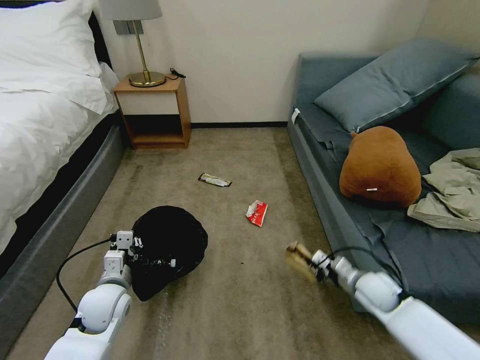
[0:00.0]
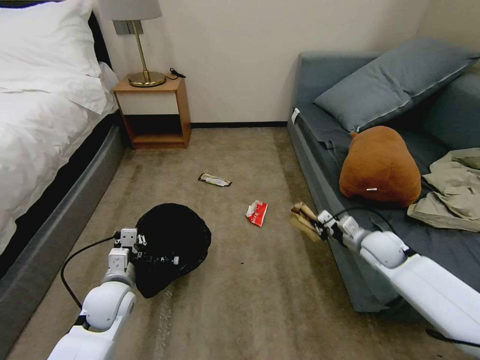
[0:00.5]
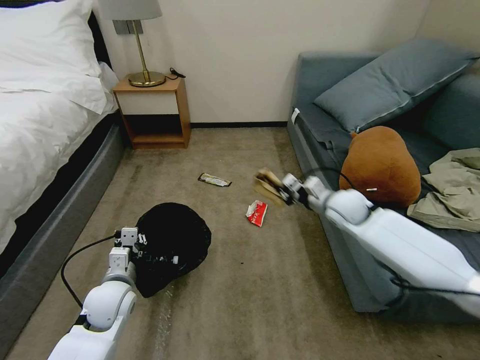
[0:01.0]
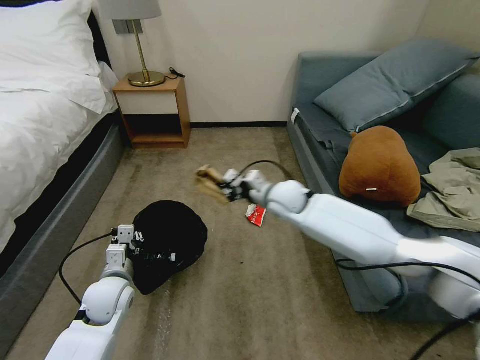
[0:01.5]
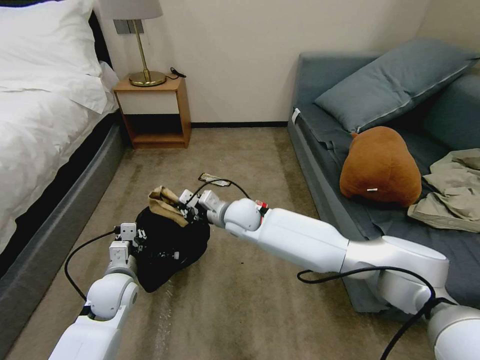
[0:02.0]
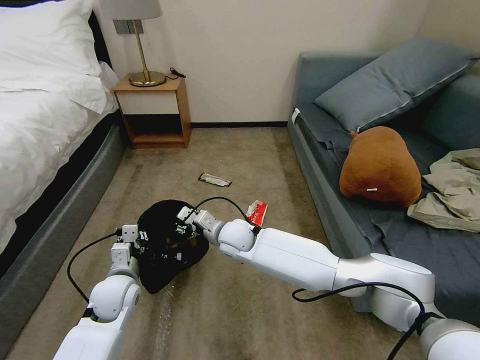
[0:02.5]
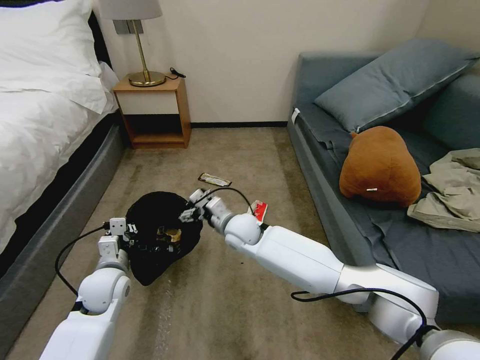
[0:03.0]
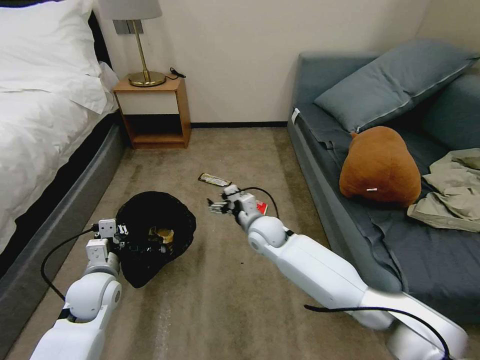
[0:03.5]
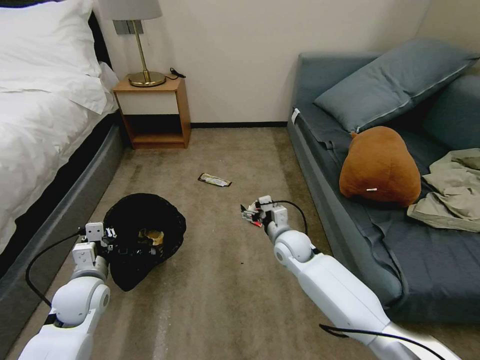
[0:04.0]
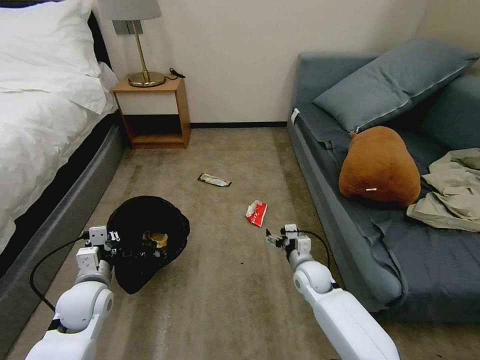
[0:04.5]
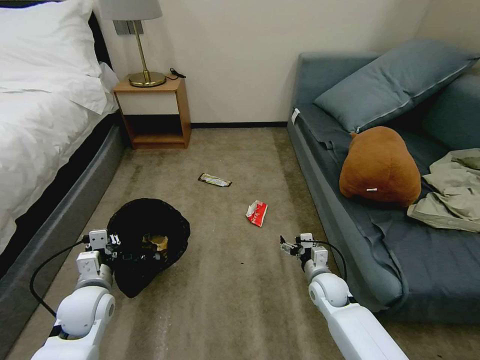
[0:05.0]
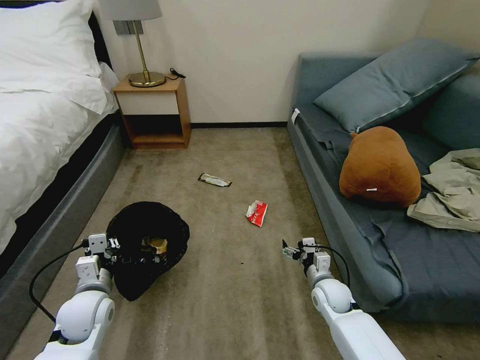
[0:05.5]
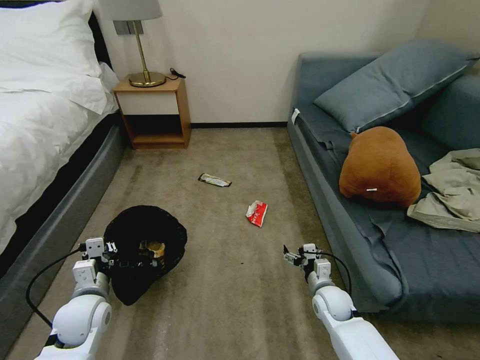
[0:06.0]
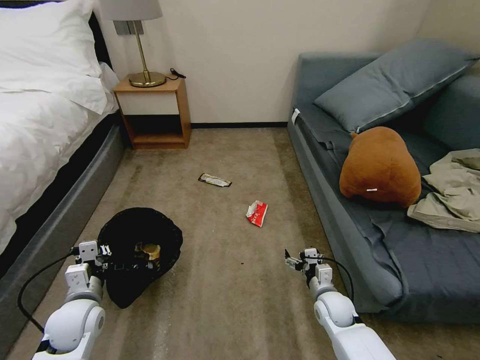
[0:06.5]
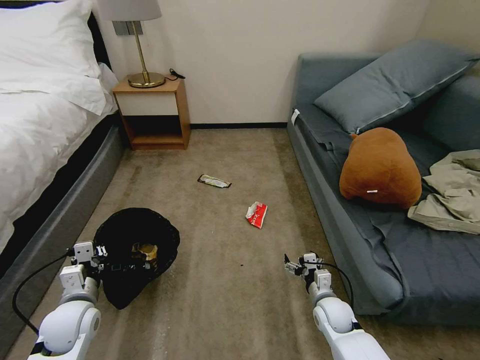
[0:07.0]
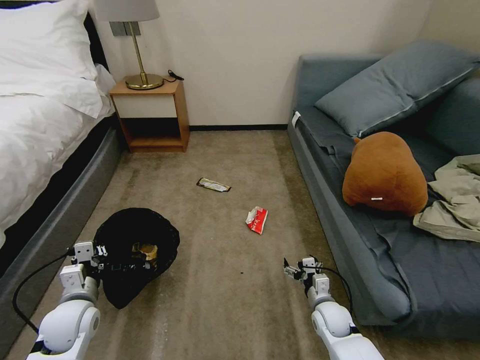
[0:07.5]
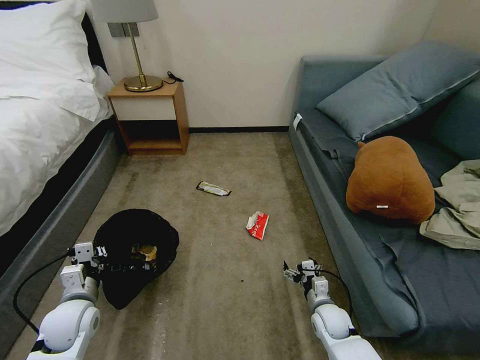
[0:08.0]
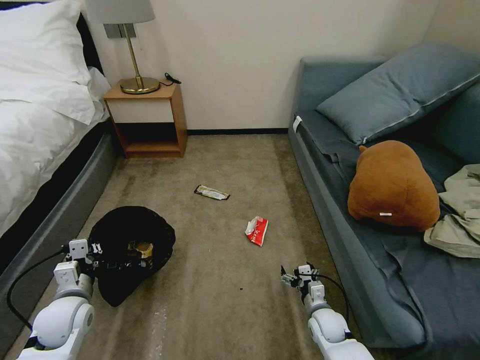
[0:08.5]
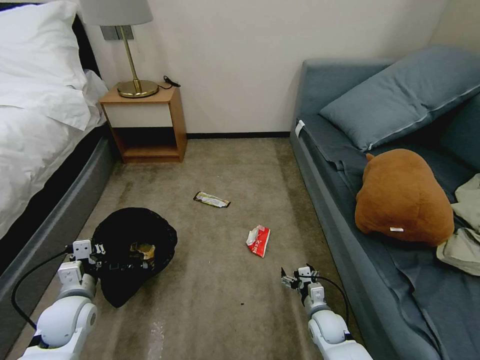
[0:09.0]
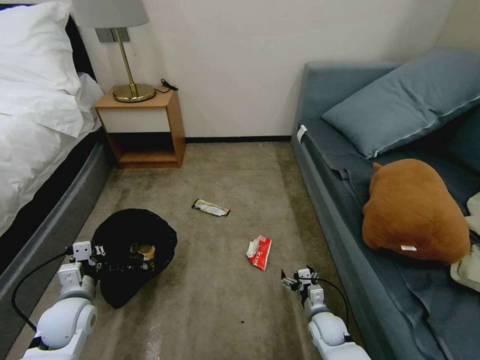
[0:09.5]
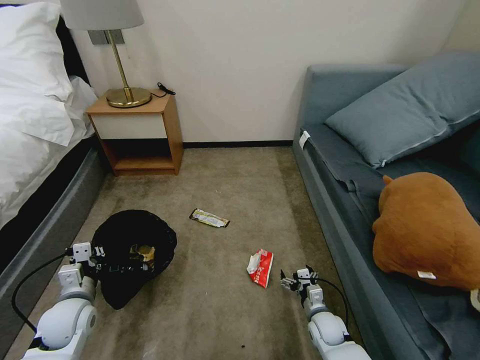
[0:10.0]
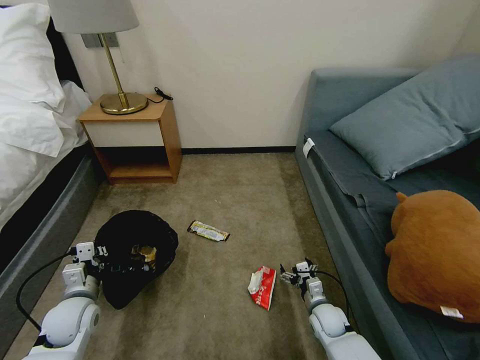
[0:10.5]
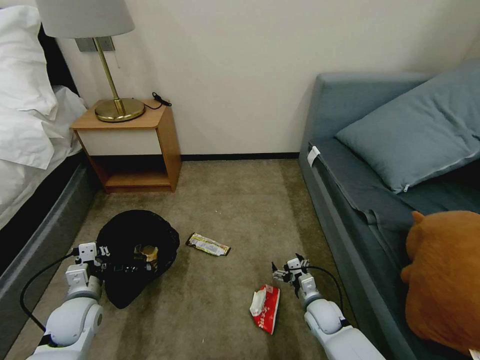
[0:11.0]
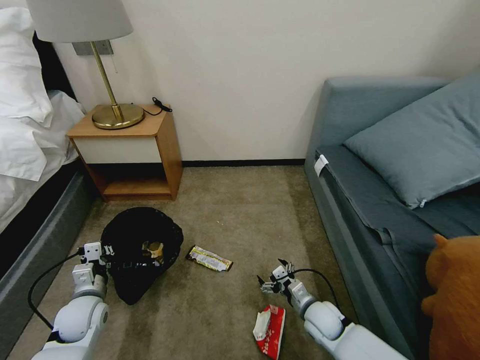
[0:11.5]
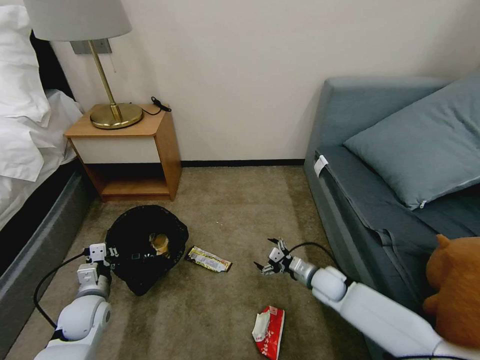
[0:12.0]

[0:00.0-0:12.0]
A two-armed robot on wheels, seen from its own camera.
Task of the whole recording: Pick up the trash bin, then pick up the garbage on the floor and place it into the trash bin.
0:00.0 to 0:02.0: The right gripper shifts some 40 cm to the left, upward and forward.
0:02.0 to 0:04.0: The right gripper moves to the right and downward, some 15 cm, and opens its fingers. Meanwhile the left gripper heads to the left, covering approximately 5 cm.
0:04.0 to 0:06.0: The right gripper is displaced downward, to the right and backward by approximately 20 cm.
0:06.0 to 0:08.0: The right gripper shifts by roughly 5 cm.
0:10.0 to 0:12.0: The right gripper goes about 10 cm forward and upward.

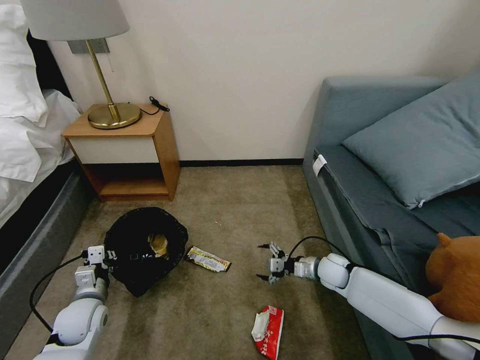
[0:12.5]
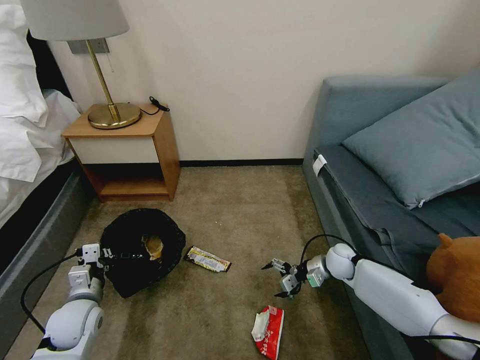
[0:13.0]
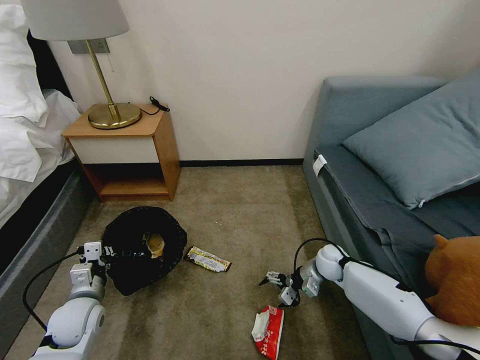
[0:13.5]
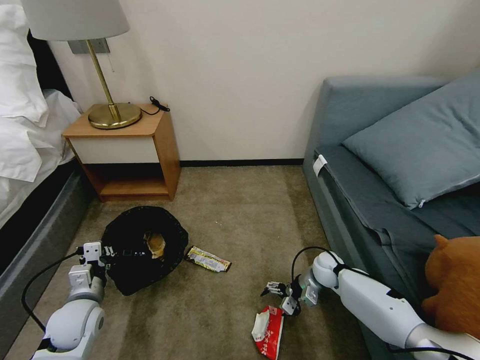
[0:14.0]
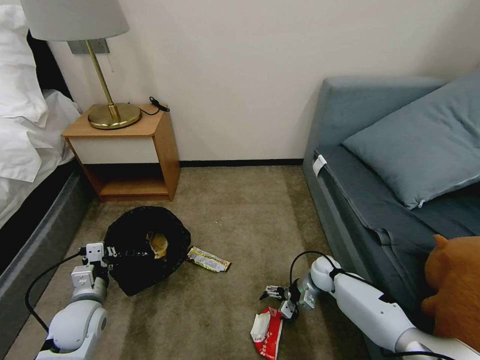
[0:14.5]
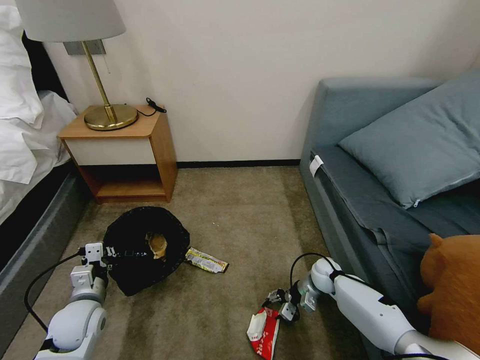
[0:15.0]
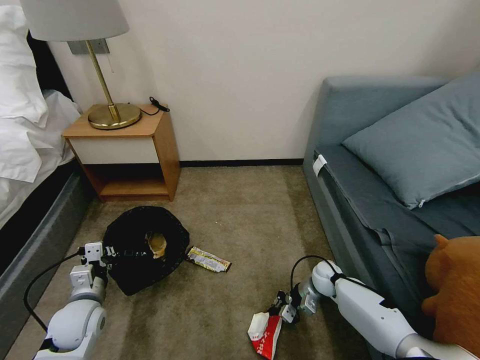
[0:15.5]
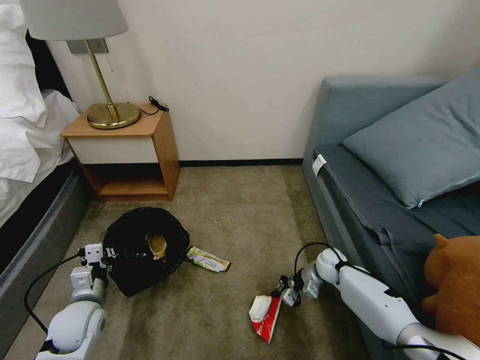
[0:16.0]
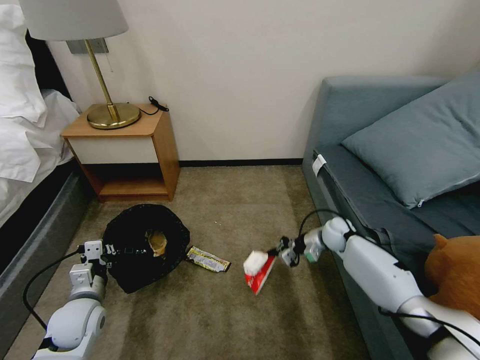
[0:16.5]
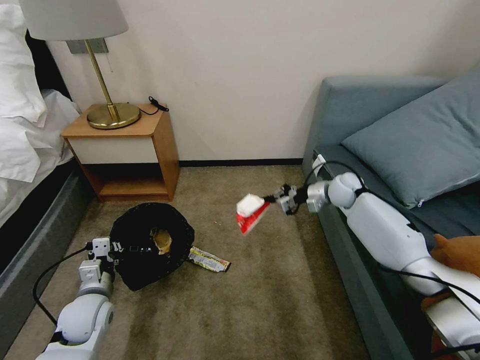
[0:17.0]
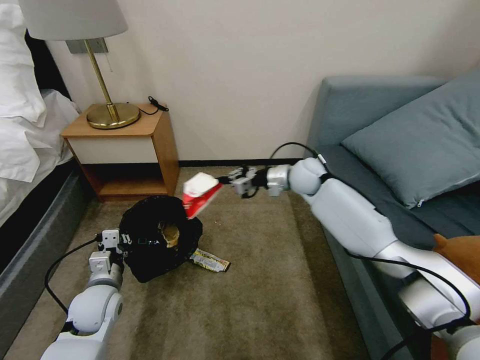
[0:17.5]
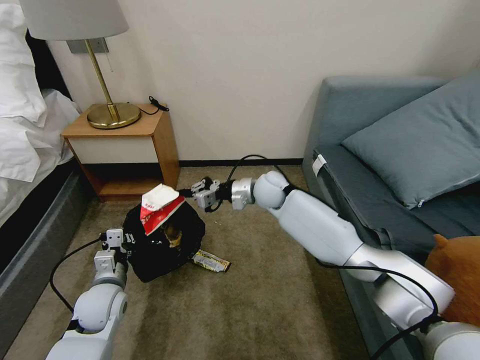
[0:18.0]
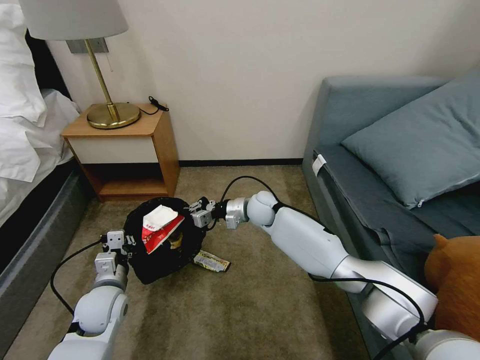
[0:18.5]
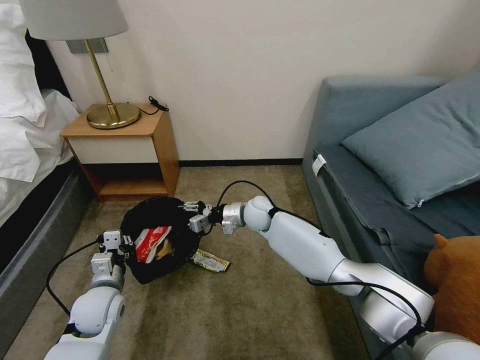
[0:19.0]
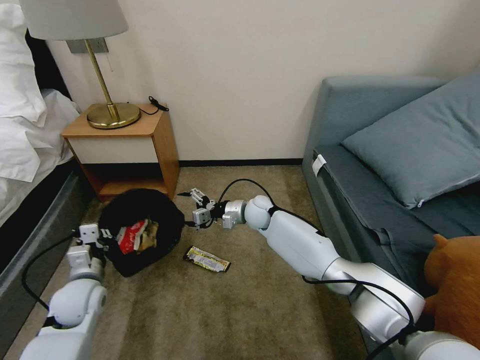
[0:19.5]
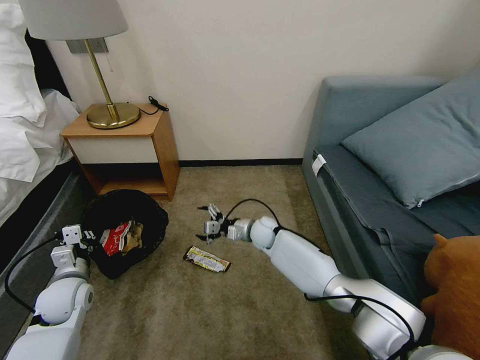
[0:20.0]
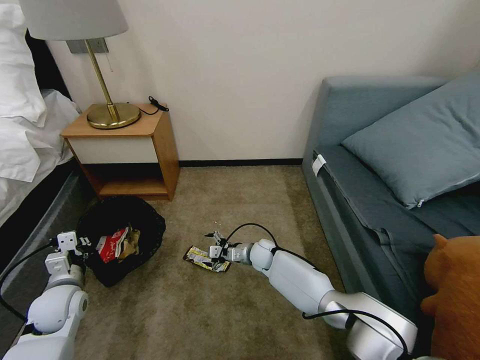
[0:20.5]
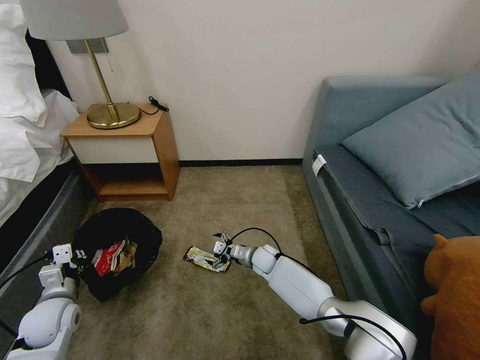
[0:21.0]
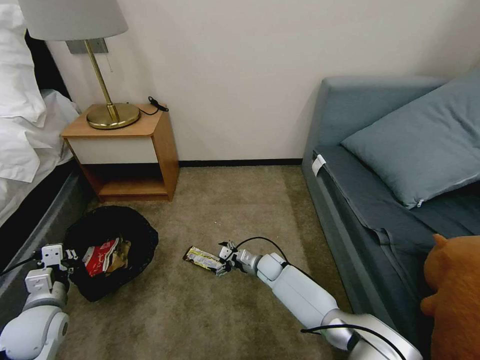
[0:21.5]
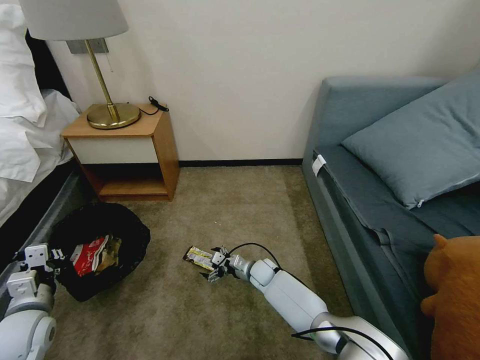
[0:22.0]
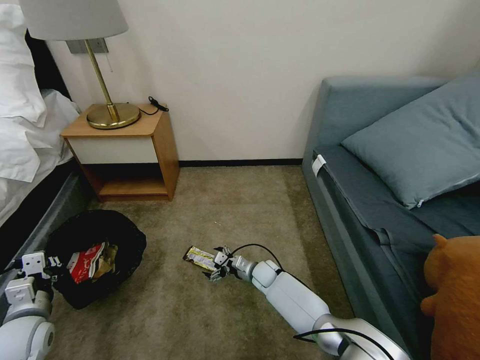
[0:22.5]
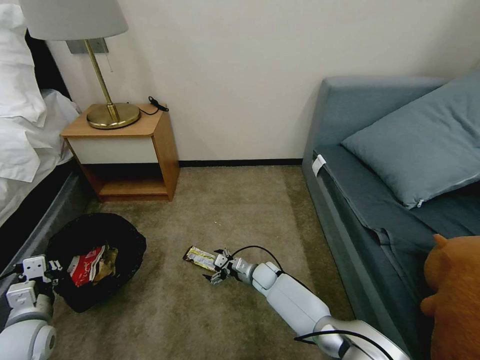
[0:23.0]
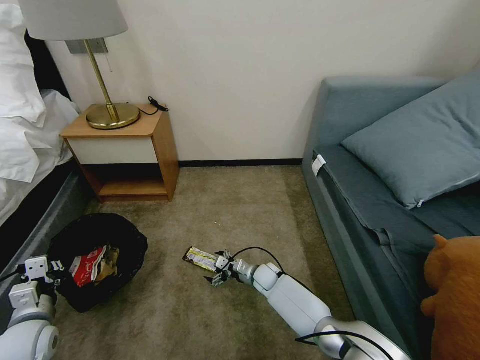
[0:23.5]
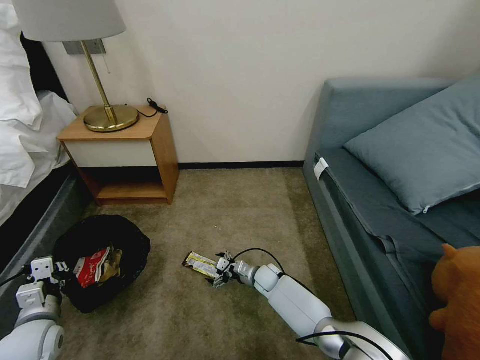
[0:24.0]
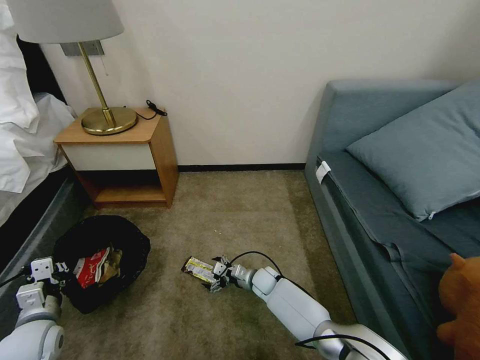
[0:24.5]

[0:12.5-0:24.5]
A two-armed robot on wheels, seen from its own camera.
Task of the whole recording: Pick up the trash bin, then pick up the garbage on the floor and place it into the trash bin.
0:14.5 to 0:16.5: The right gripper goes approximately 15 cm upward and forward, and closes its fingers.
0:16.5 to 0:18.5: The left gripper shifts by approximately 5 cm; the right gripper shifts approximately 25 cm to the left.
0:18.5 to 0:20.5: The right gripper shifts some 15 cm downward, and opens its fingers, while the left gripper is displaced to the left by about 10 cm.
0:20.5 to 0:22.5: The right gripper travels downward by some 5 cm. Meanwhile the left gripper travels backward by approximately 5 cm.
0:22.5 to 0:24.5: The grippers move only a little.

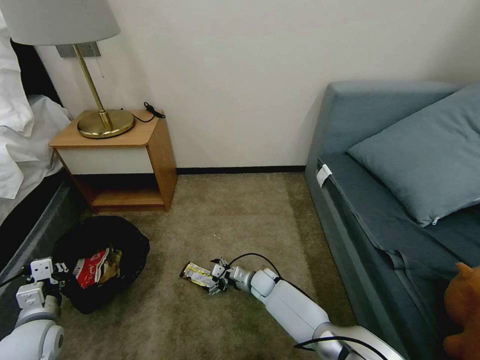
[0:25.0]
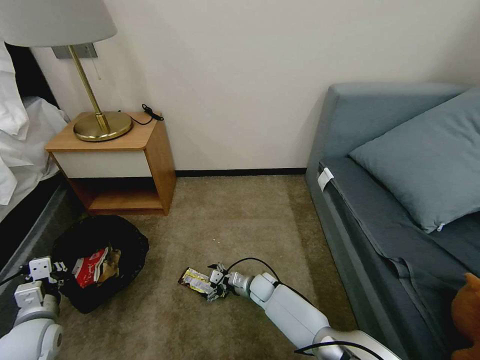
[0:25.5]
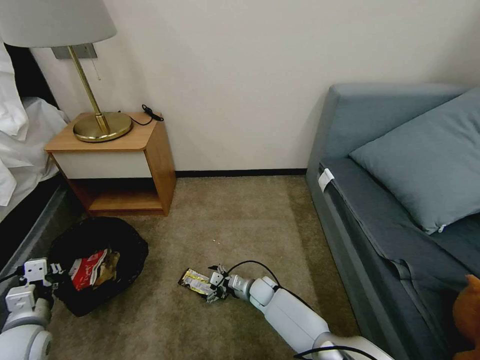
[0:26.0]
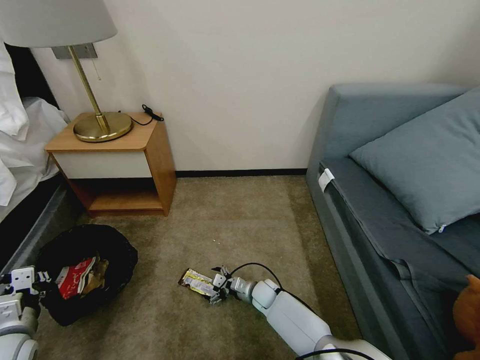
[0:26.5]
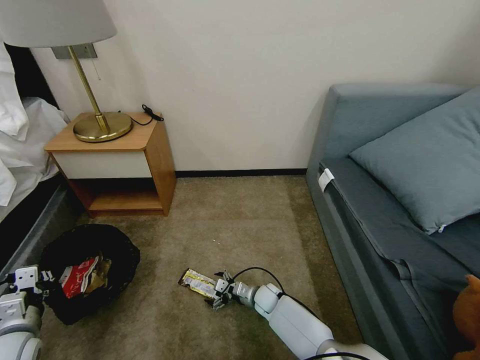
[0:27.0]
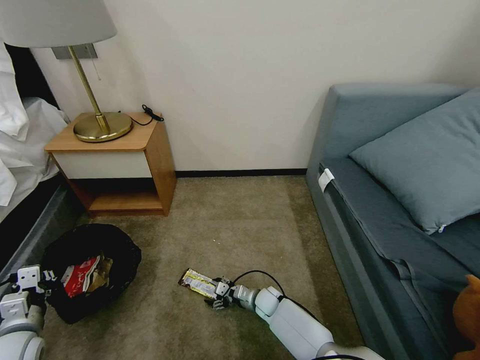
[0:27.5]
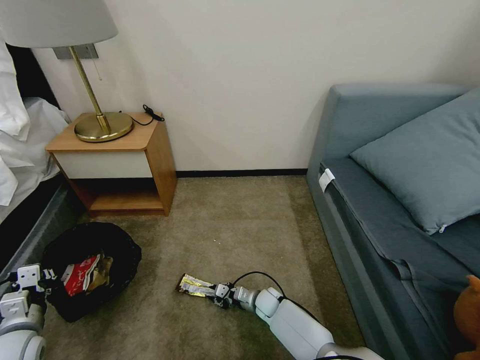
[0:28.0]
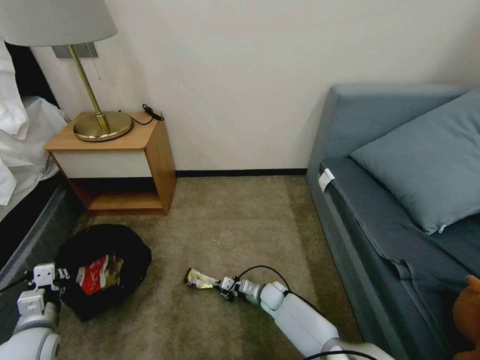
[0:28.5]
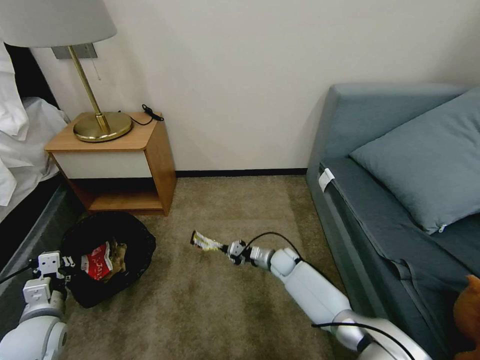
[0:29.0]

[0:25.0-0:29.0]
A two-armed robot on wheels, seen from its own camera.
Task of the whole recording: Pick up the trash bin, then pick up the garbage on the floor and place it into the trash bin.
0:25.0 to 0:27.0: The right gripper ends up about 5 cm from where it was.
0:27.0 to 0:29.0: The left gripper changes place by about 5 cm; the right gripper moves forward, upward and to the right, about 10 cm, and closes up.
